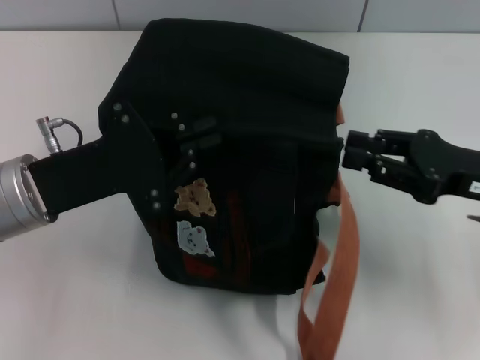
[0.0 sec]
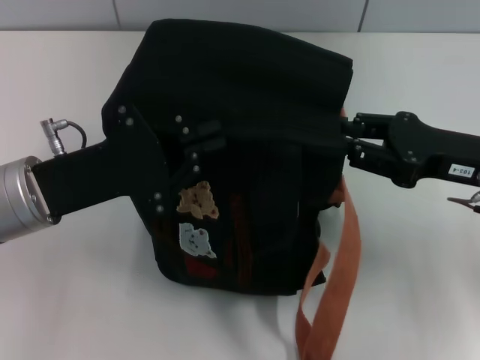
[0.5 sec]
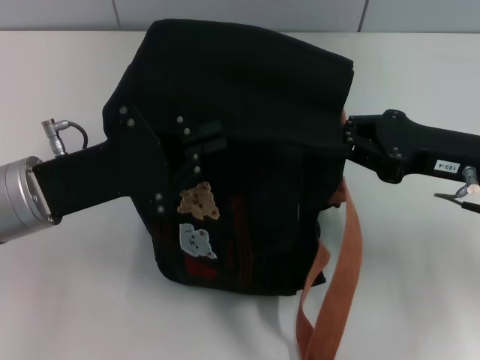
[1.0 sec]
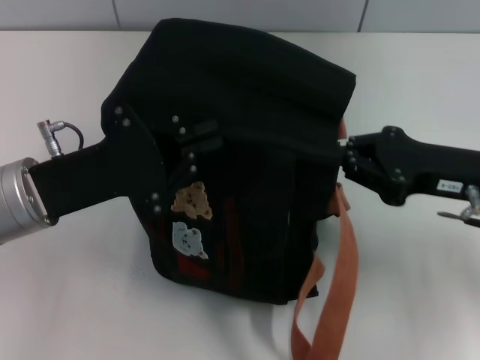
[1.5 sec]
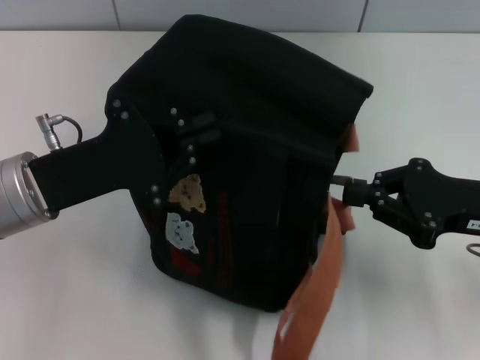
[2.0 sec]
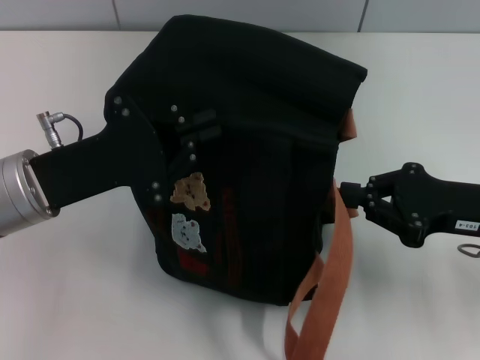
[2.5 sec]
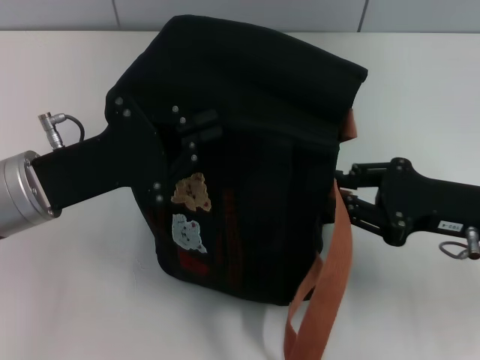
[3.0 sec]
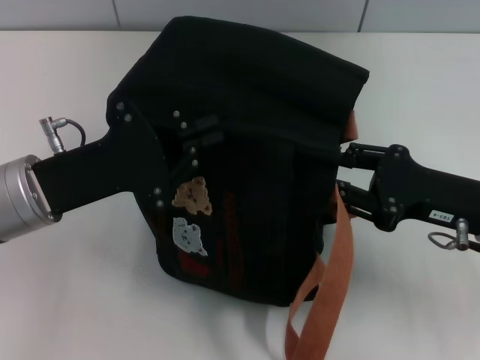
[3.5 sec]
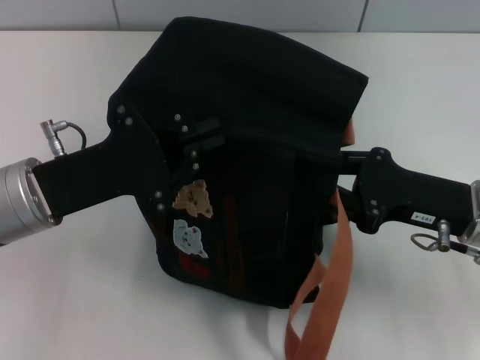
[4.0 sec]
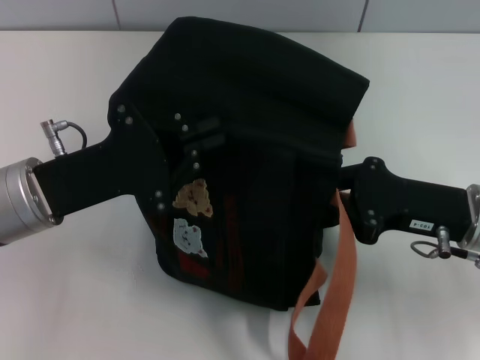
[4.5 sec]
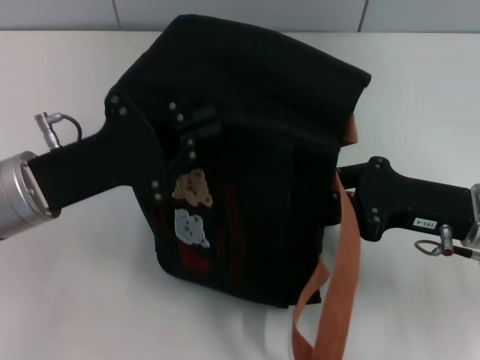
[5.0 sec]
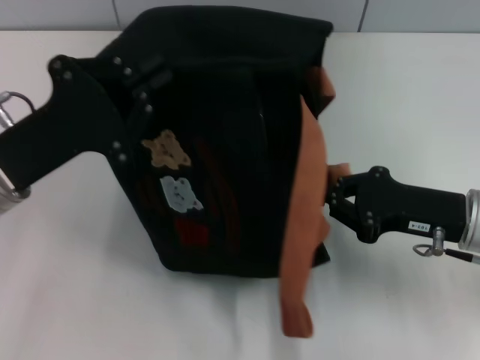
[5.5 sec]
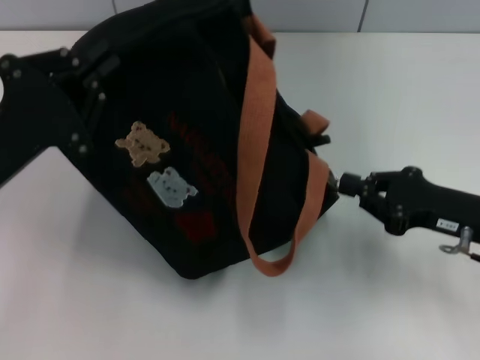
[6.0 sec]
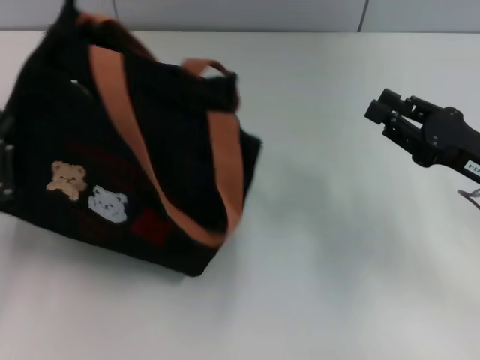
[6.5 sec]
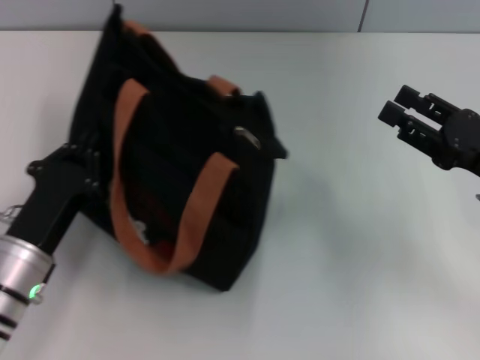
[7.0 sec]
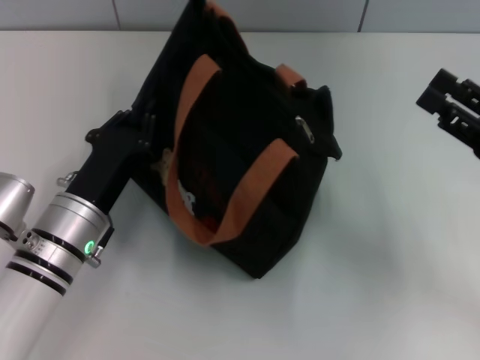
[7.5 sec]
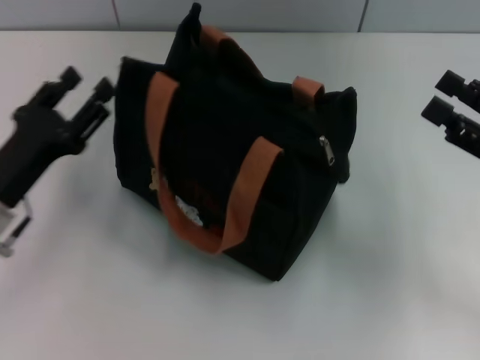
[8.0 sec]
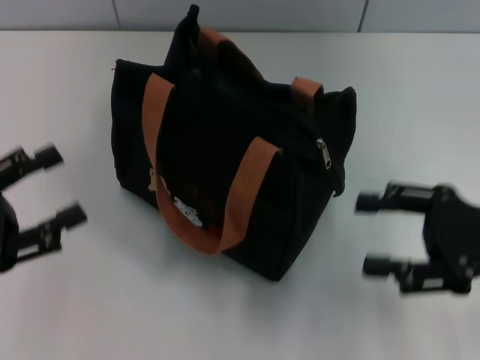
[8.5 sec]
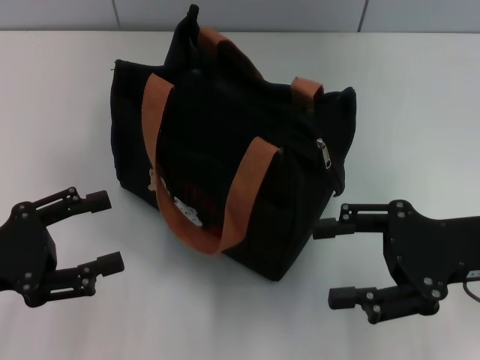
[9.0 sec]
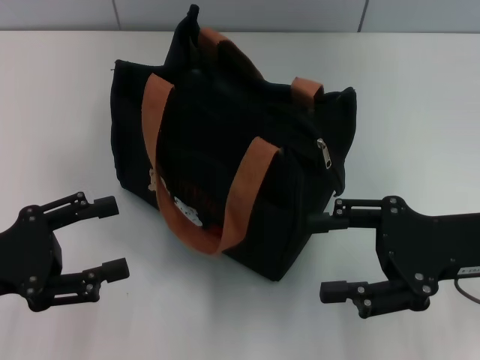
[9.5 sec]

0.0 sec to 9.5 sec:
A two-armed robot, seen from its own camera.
Step, 0.0 sec to 6.0 sec: Pull open the zipper with your right hand.
Step, 6.5 sec to 7.5 sec: Grab the bag with your left hand.
0.0 sec to 2.0 sec: The right gripper closes.
2.0 sec to 4.0 sec: The right gripper opens its fingers.
4.0 sec to 5.5 sec: The right gripper closes its fingers.
5.5 sec to 7.5 sec: The right gripper is displaced to the right by some 5 cm, and opens up; the left gripper heads downward and to the right, covering about 10 cm.
7.5 sec to 9.5 sec: The left gripper shifts approximately 15 cm to the left, upward and backward, and opens. Meanwhile the right gripper heads to the left, covering some 5 cm.
